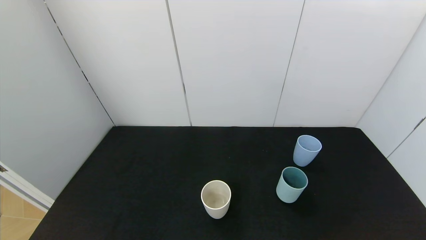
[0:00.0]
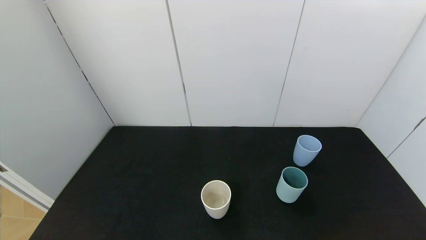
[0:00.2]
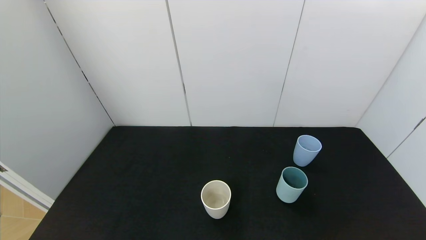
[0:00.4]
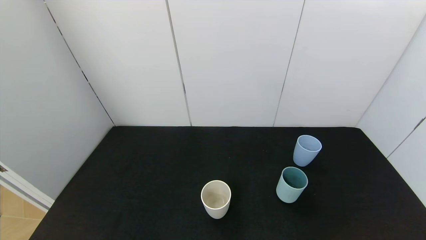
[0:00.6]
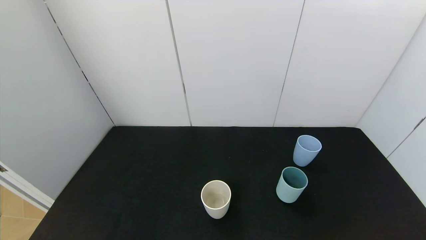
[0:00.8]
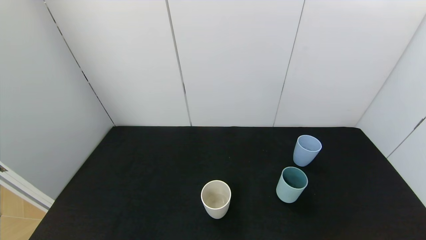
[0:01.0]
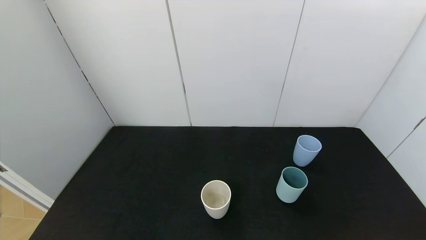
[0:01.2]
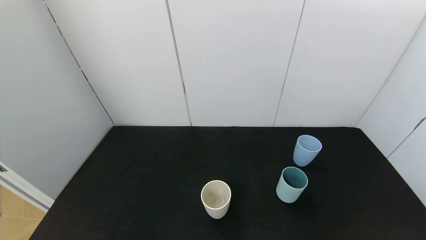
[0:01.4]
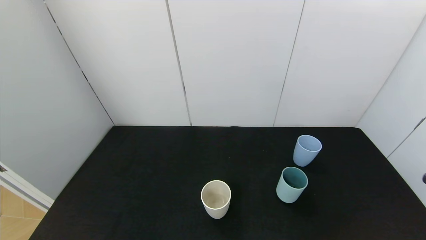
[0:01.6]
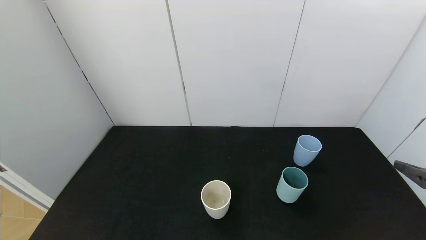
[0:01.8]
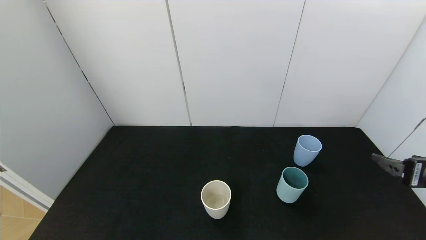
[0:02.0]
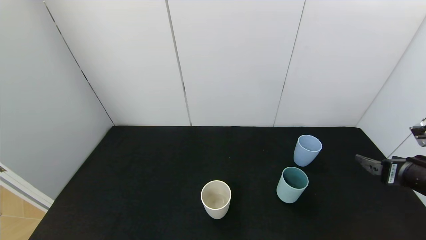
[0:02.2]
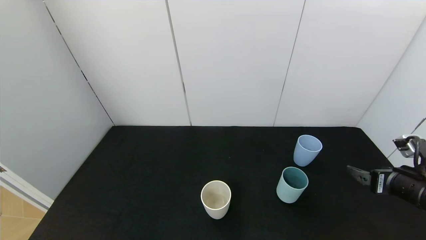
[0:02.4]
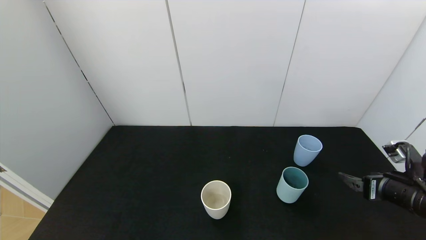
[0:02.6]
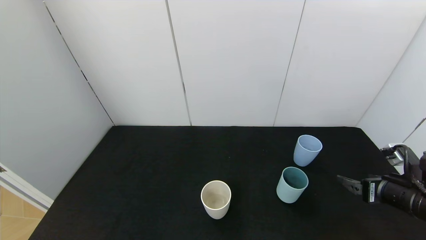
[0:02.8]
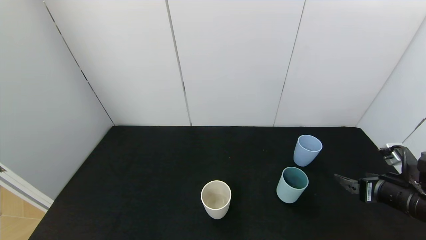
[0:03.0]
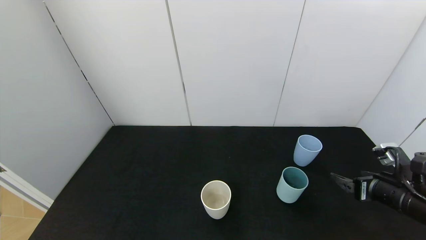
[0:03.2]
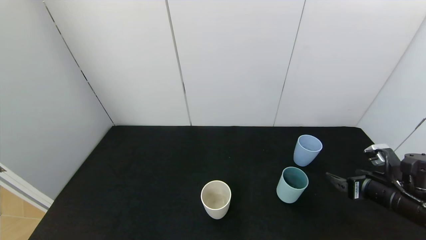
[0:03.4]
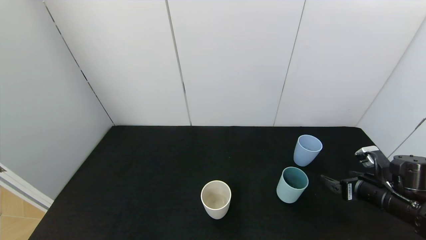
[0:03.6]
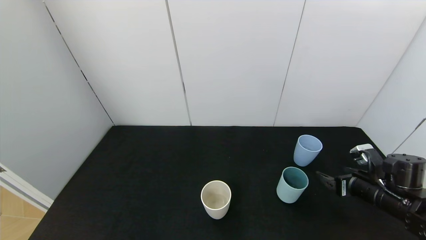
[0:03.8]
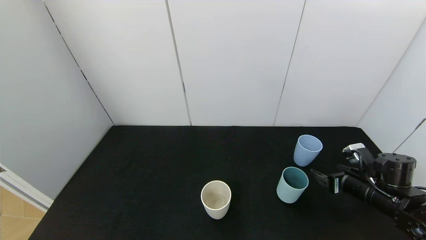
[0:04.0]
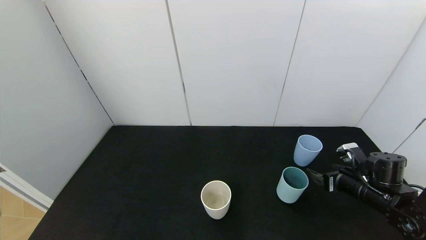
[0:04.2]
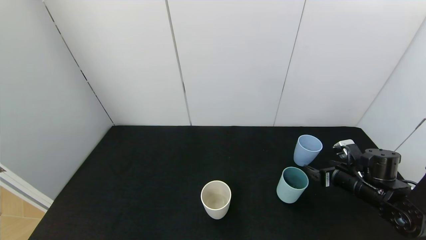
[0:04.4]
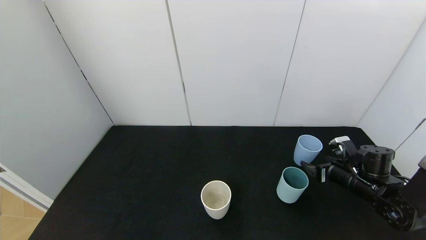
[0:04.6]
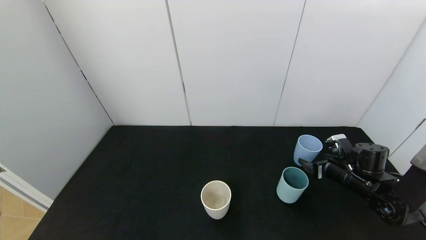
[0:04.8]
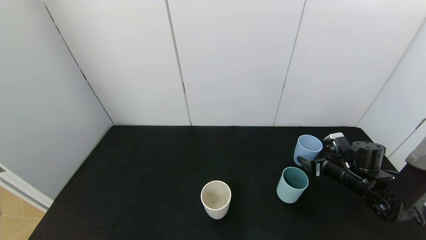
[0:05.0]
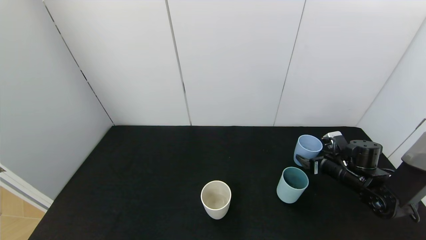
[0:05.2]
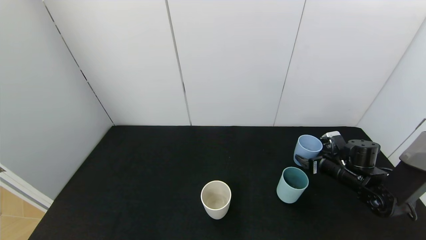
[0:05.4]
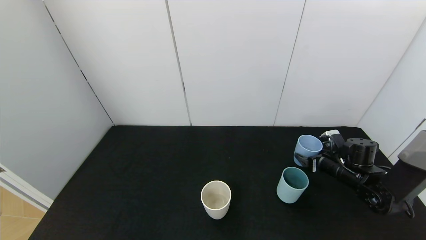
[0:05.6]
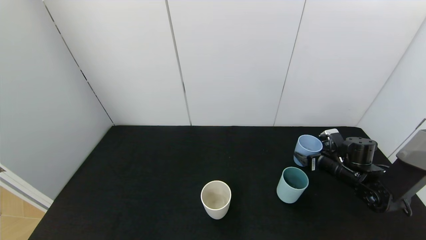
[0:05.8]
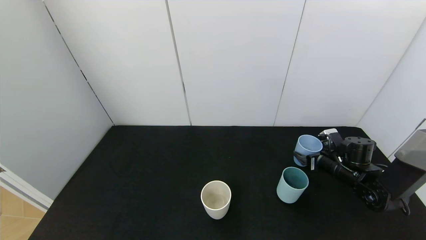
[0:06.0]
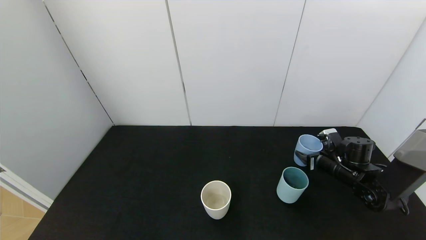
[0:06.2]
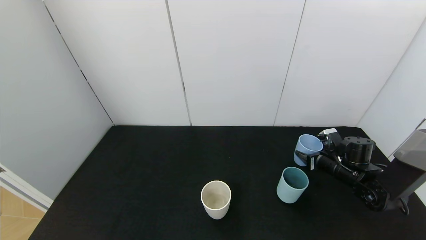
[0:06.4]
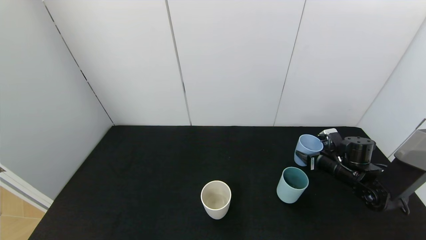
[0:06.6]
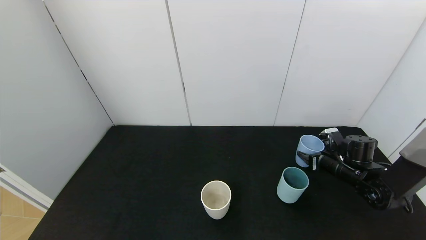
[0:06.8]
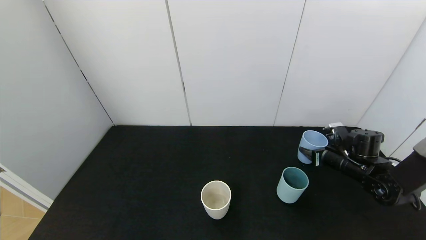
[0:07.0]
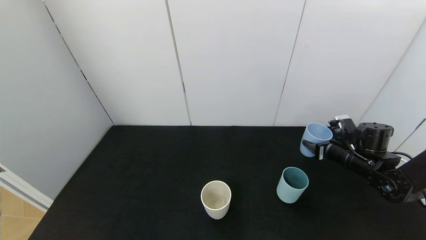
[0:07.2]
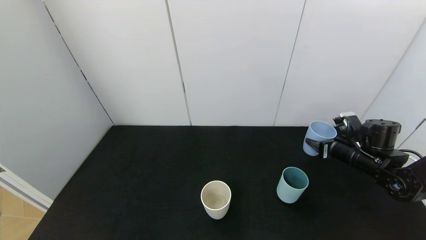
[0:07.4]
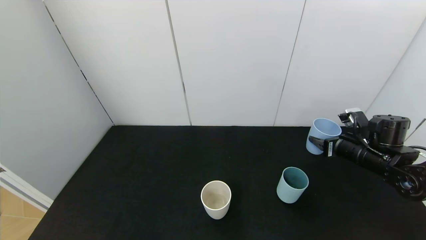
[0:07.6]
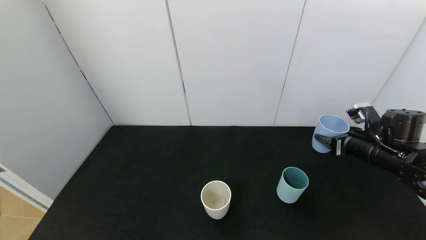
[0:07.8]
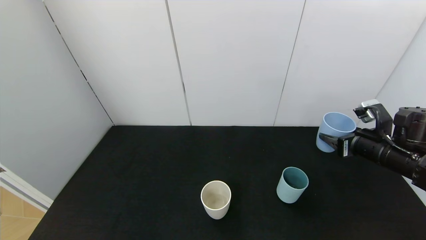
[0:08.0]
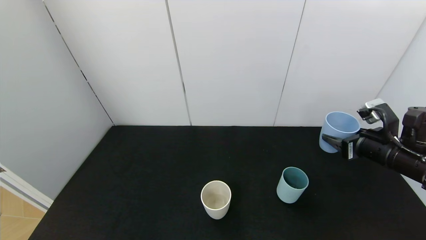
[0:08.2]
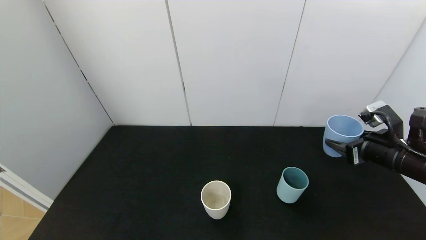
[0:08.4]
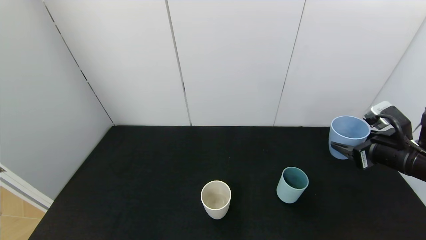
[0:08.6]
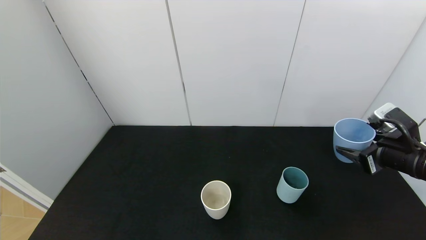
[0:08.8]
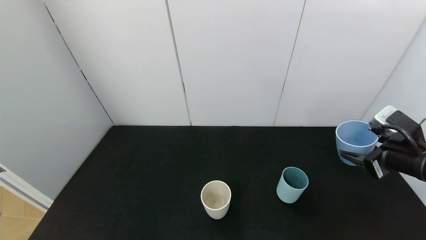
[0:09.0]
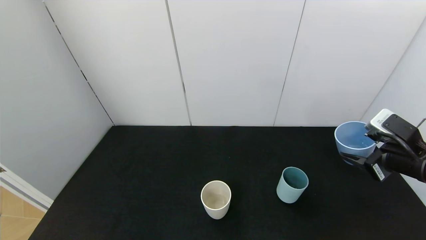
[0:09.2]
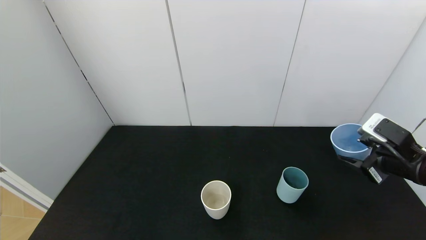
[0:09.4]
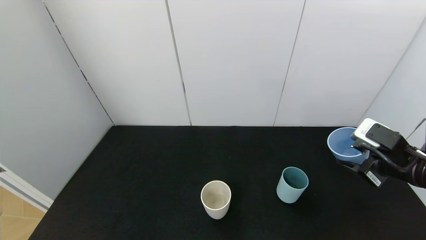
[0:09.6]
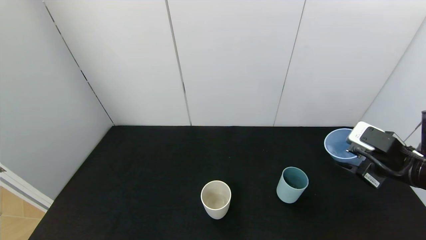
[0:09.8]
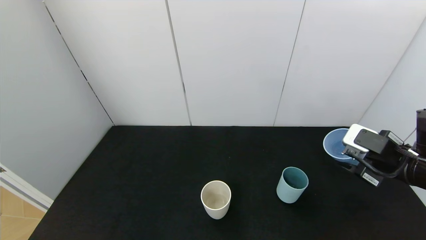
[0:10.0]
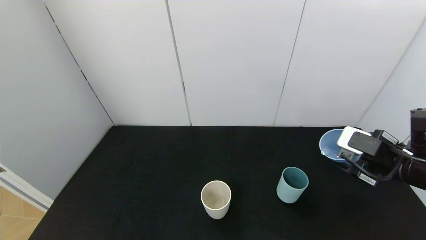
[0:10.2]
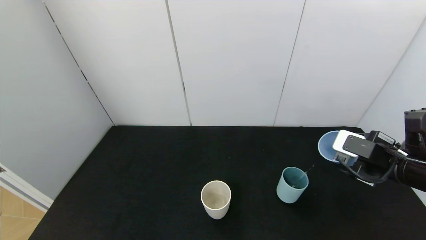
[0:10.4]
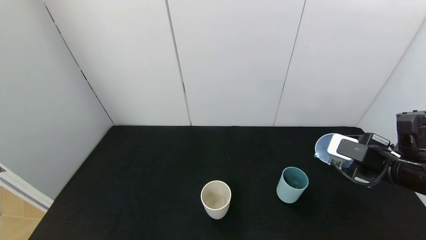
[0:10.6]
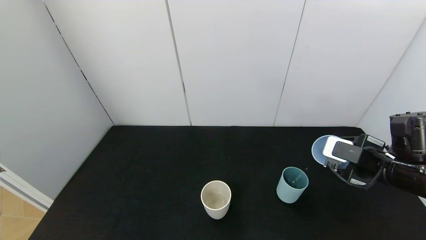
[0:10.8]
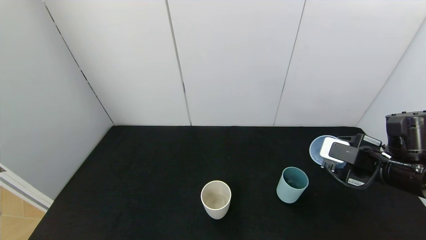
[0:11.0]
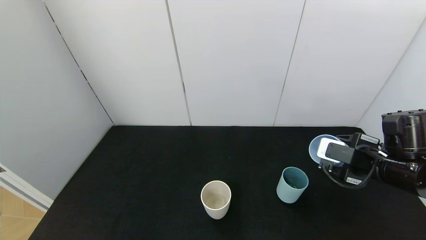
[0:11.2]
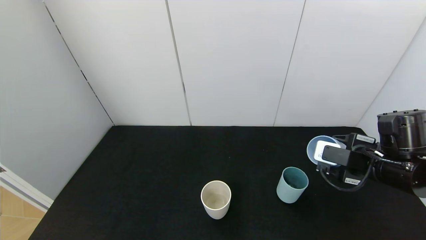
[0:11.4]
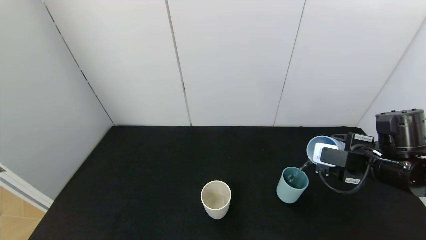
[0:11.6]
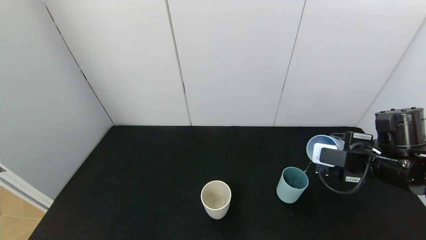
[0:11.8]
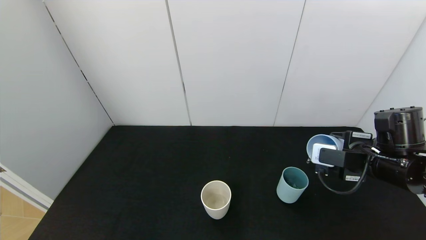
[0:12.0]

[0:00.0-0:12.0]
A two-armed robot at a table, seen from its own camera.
Task of the whole recording: use the gripper to pour the water into the other two cups on black table.
Step, 0:00.0 to 0:06.6: Grasp the blue cup with the right gripper.
0:01.6 to 0:03.0: The right gripper goes some 20 cm forward and downward.
0:03.0 to 0:04.4: The right gripper goes roughly 10 cm forward and downward.
0:04.4 to 0:06.0: The right gripper shifts some 5 cm forward.
0:06.0 to 0:07.6: The right gripper shifts some 10 cm upward, and closes.
0:07.6 to 0:09.0: The right gripper travels backward and upward by approximately 10 cm.
0:10.4 to 0:12.0: The grippers move only a little.

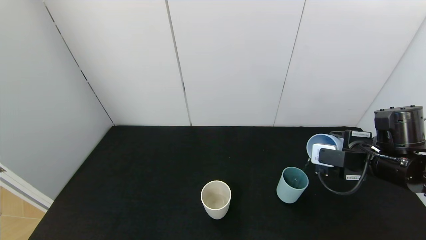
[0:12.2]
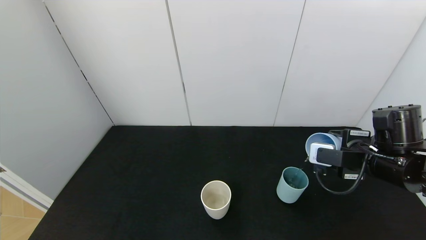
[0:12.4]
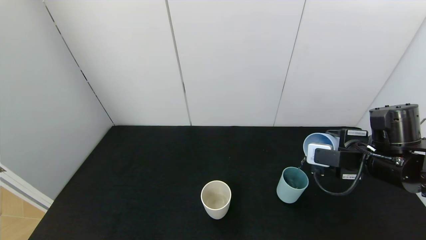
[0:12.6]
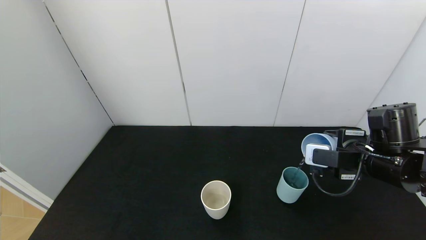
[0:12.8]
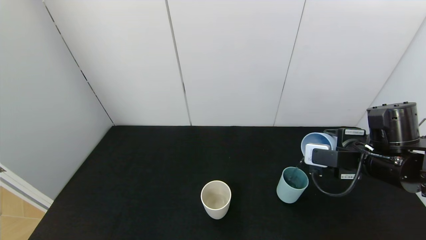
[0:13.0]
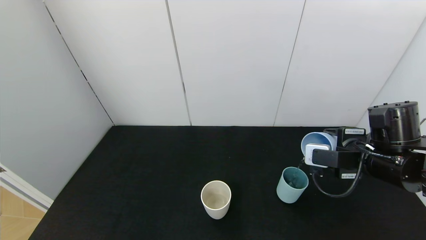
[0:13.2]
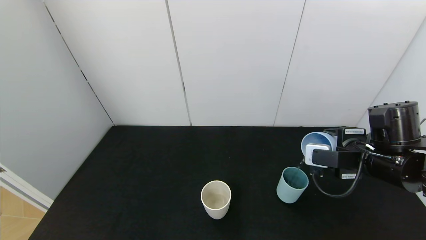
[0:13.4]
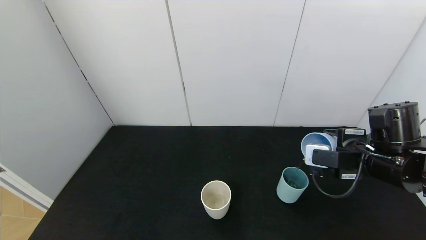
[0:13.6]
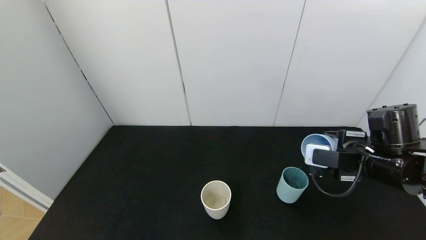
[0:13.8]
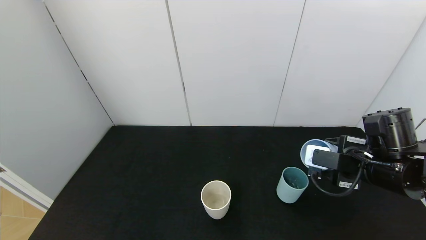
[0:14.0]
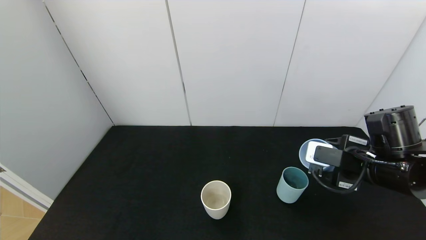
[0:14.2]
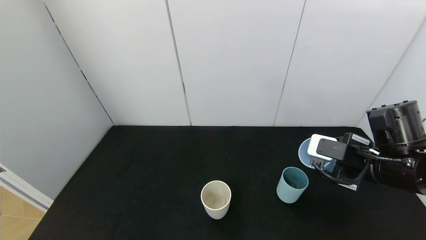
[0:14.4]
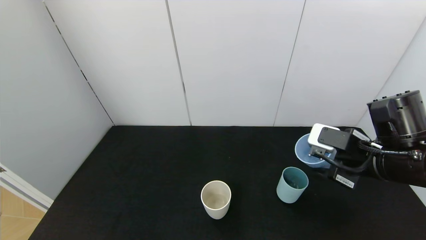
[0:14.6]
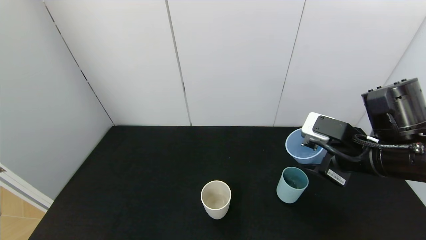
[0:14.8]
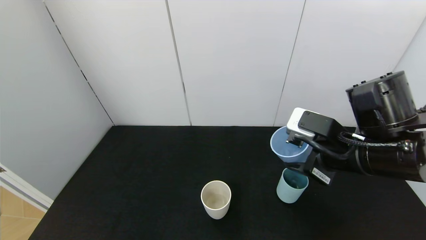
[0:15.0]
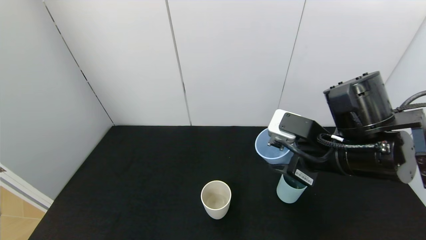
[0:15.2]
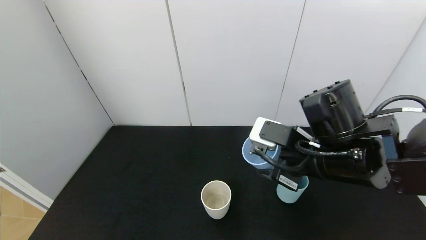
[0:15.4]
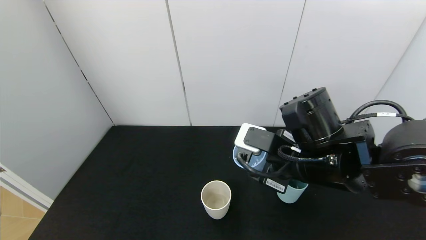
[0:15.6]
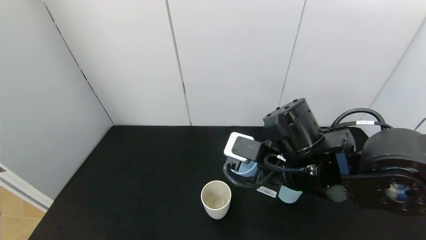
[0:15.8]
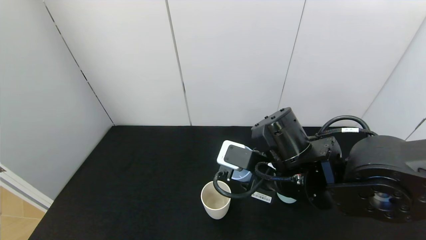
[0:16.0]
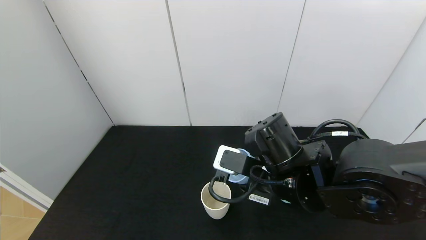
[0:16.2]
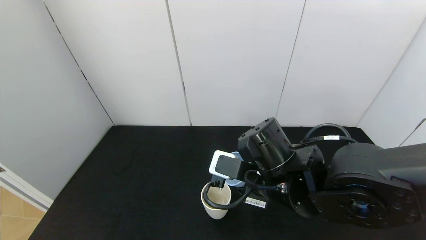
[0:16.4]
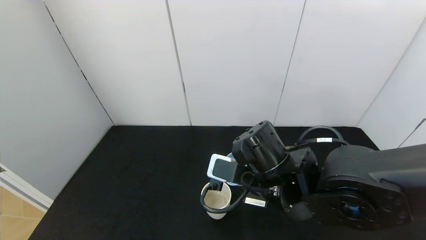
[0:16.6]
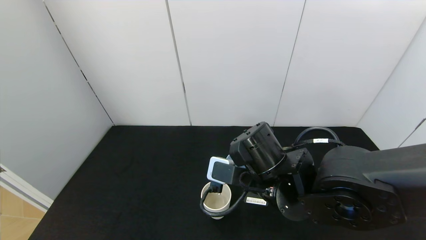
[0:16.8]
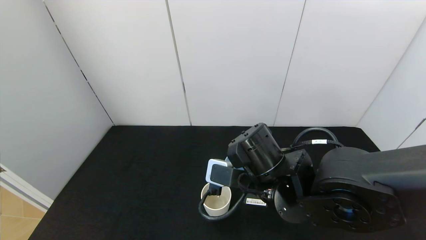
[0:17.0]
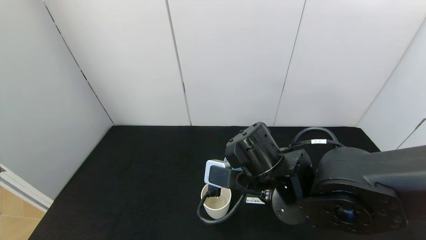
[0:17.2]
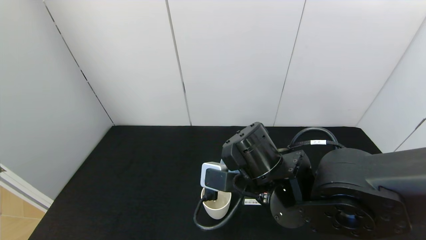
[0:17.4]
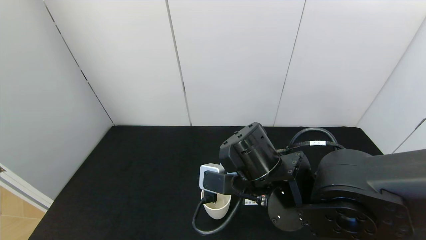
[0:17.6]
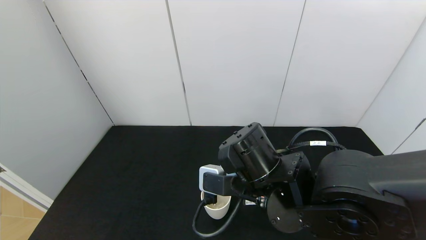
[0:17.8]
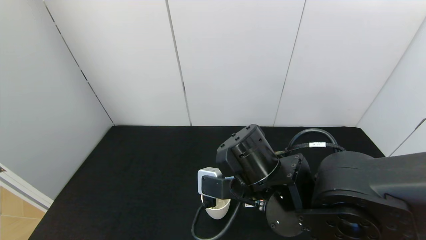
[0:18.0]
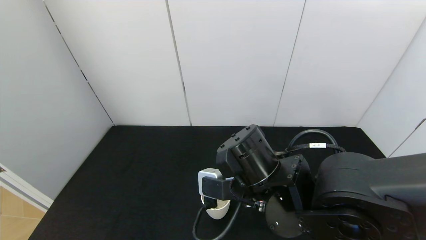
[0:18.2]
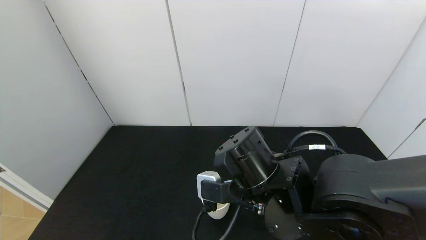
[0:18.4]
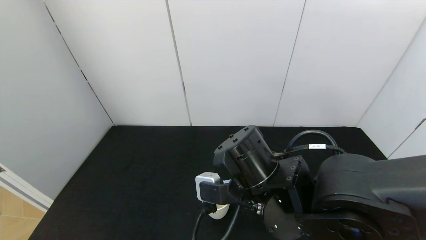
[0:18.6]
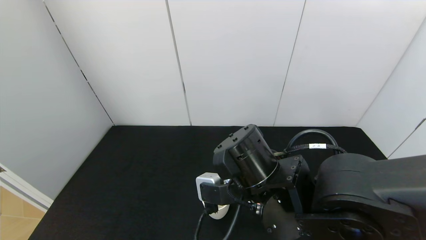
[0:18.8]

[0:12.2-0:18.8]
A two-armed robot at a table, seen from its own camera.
Task of the whole recording: use the gripper to pour the water into the other two cups on black table.
Step, 0:12.2 to 0:14.6: Pour water from blue cup to green cup with the right gripper.
0:12.2 to 0:13.8: There are only small adjustments of the grippers.
0:13.8 to 0:15.4: The right gripper goes approximately 10 cm to the left.
0:15.4 to 0:17.2: The right gripper heads to the left, covering approximately 10 cm.
0:17.2 to 0:18.8: The grippers stay close to where they were, moving slightly.
